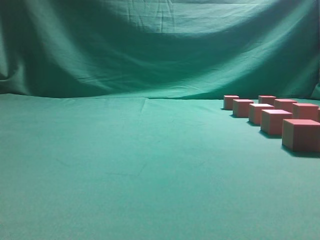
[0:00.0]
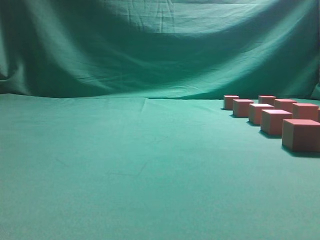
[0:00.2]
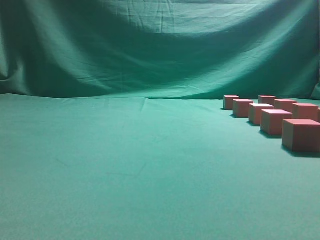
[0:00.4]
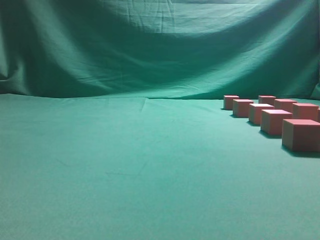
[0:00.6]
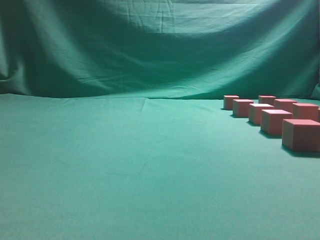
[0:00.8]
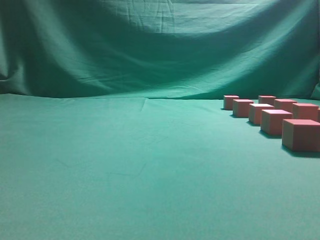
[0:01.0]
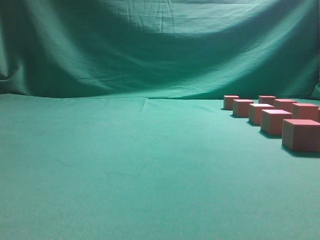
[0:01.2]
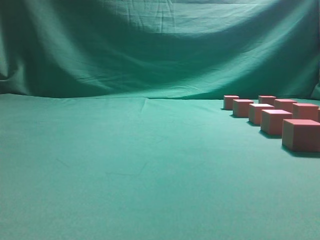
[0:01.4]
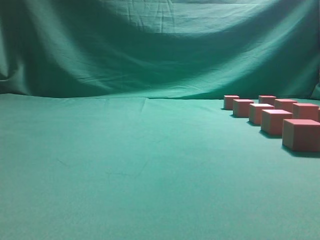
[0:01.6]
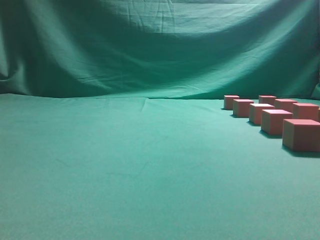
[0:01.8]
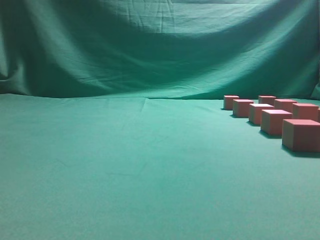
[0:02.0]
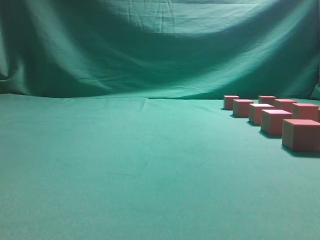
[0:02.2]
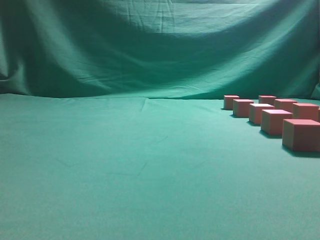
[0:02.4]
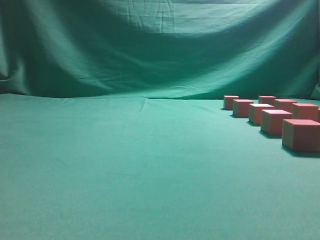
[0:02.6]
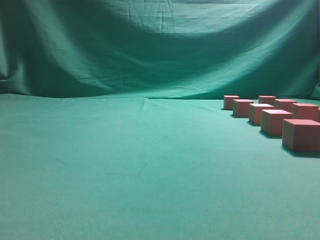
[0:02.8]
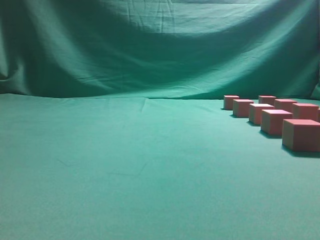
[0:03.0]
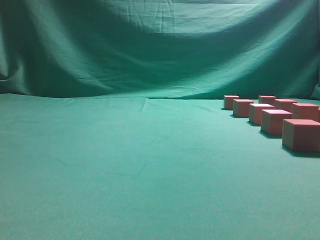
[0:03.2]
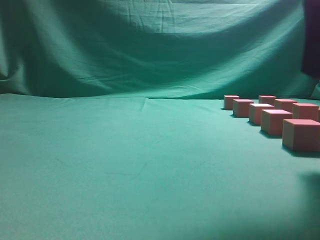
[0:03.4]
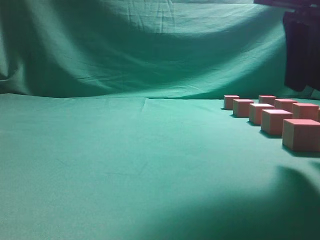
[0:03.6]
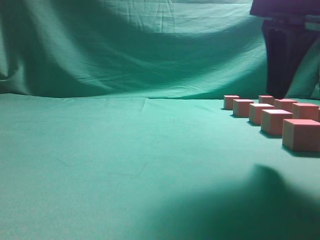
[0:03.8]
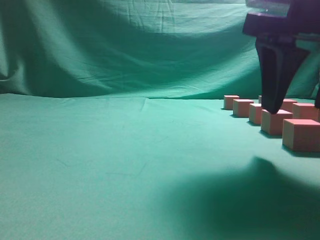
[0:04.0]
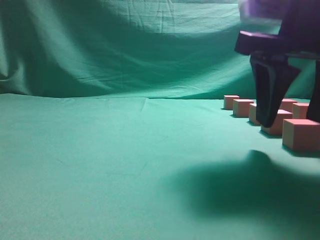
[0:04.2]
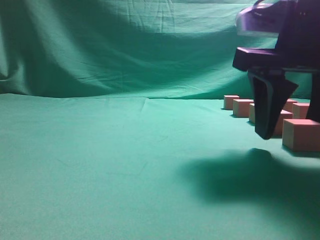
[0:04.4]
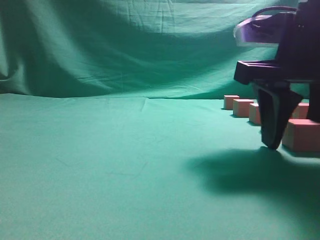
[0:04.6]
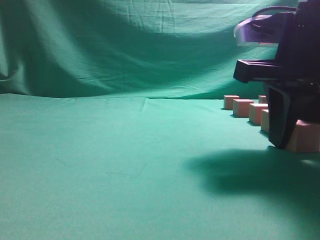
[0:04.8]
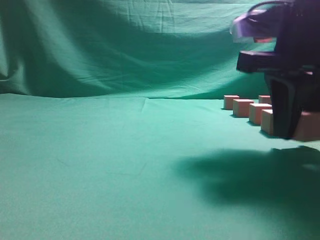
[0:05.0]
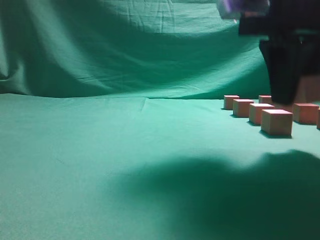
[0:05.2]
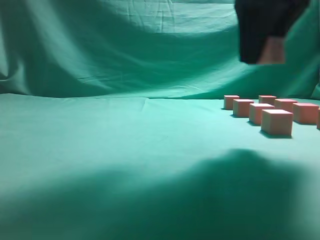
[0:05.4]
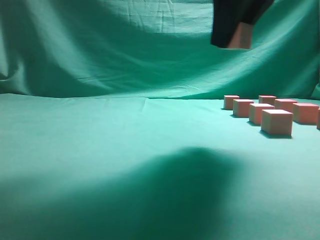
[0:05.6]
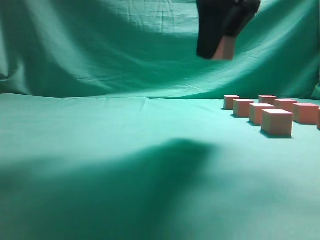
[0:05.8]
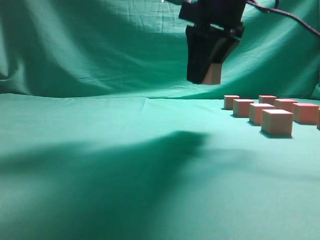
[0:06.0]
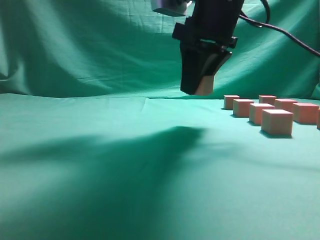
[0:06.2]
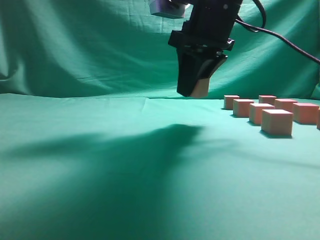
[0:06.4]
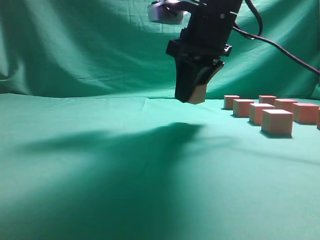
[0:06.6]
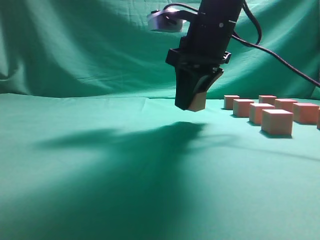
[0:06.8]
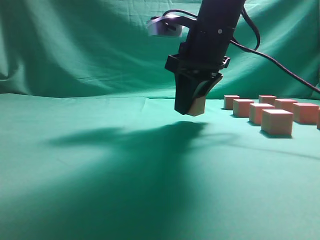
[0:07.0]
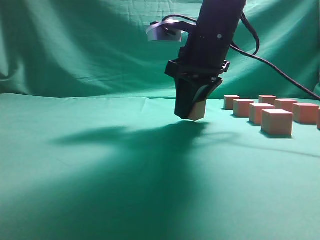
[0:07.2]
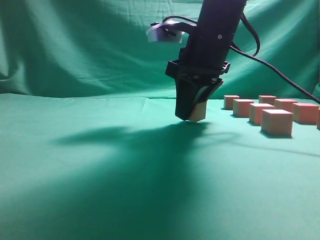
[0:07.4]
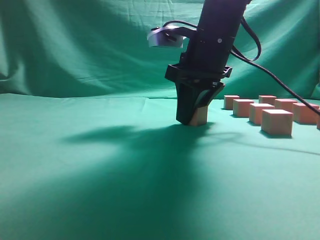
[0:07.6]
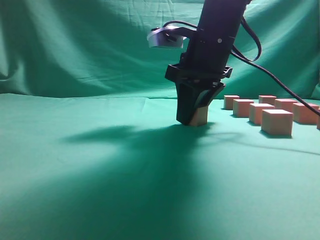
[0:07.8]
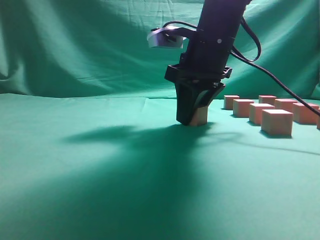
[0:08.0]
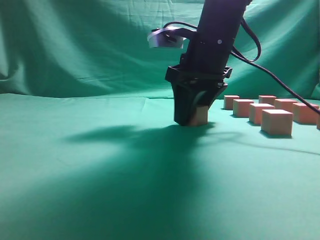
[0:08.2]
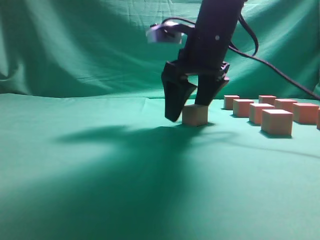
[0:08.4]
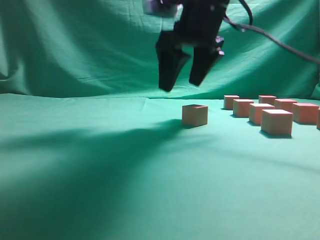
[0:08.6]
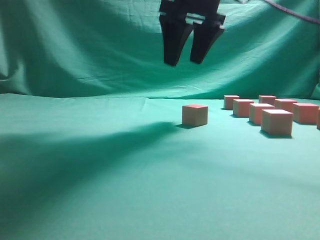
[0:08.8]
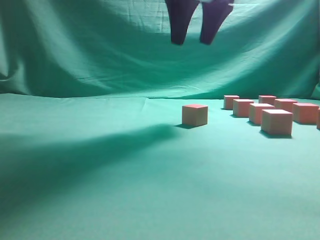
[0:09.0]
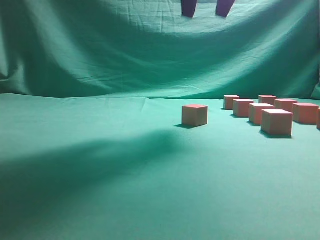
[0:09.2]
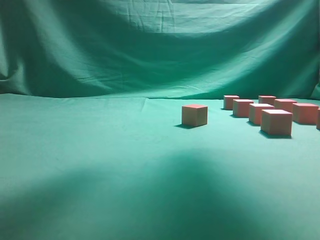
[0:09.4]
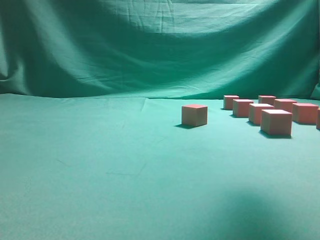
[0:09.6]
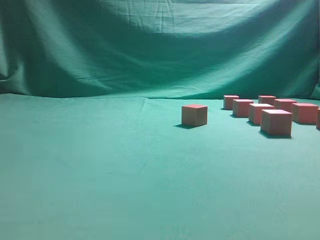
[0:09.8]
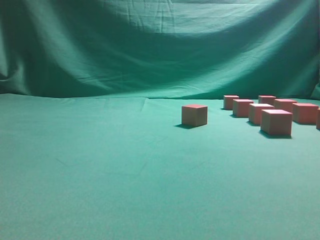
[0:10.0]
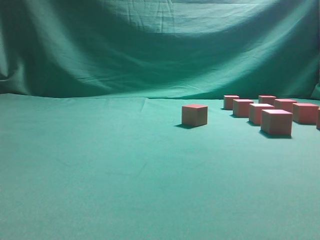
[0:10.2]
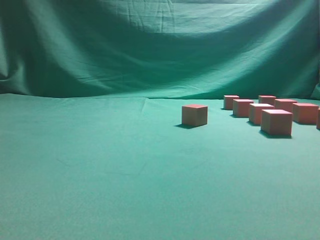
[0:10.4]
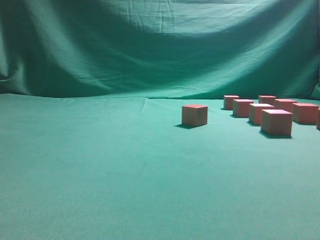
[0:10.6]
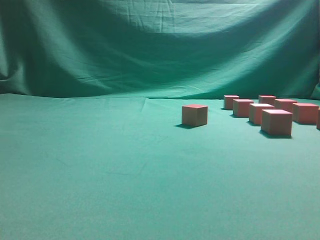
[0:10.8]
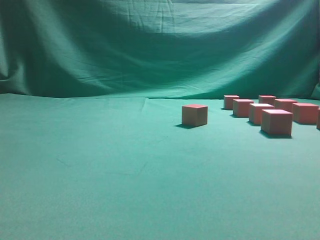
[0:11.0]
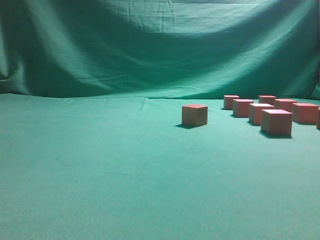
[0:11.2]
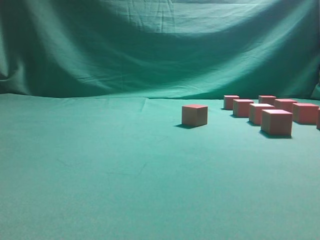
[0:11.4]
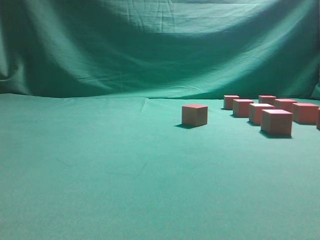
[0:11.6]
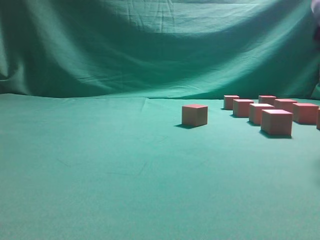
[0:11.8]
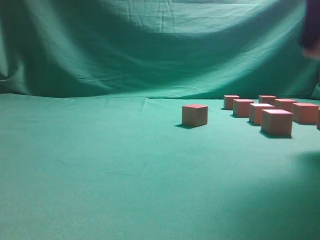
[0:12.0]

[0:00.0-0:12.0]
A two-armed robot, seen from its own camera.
Task of the whole recording: pick up the multiple cubes in two columns one by one and place them in another position on the table.
Step, 0:00.0 to 0:05.0: Pick up the block on the table.
Step, 0:05.2 to 0:08.8: Place the block at the correct position to assemble the letter S.
Step, 0:09.0 to 0:11.6: Pick up the block on the table.
0:03.0 to 0:04.4: The right gripper travels downward, forward and to the left by about 15 cm, and opens.
0:04.4 to 0:06.0: The right gripper is displaced forward, to the left and upward by some 15 cm, and closes.
0:06.0 to 0:07.6: The right gripper shifts about 5 cm downward.
0:07.6 to 0:09.0: The right gripper is displaced upward by about 15 cm, and opens.
0:09.0 to 0:10.4: The right gripper shifts roughly 25 cm to the right, backward and downward.
0:10.4 to 0:12.0: The right gripper heads upward and forward, covering approximately 10 cm, and closes.

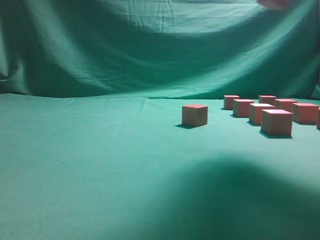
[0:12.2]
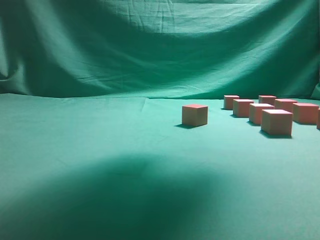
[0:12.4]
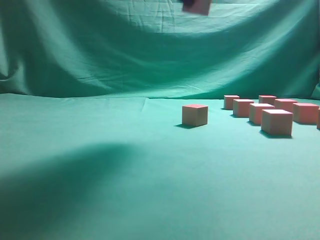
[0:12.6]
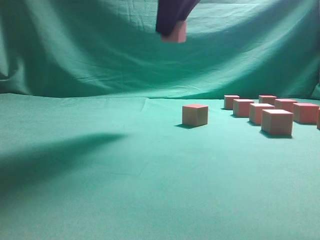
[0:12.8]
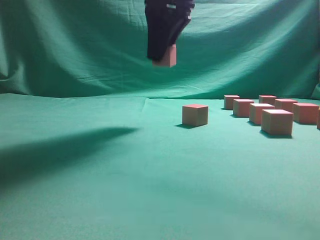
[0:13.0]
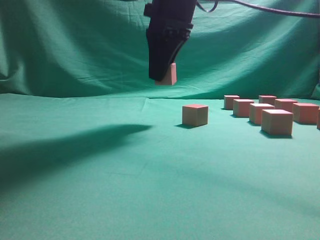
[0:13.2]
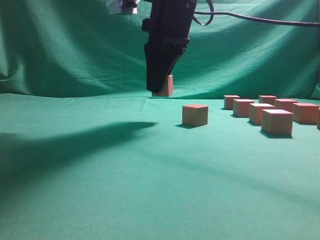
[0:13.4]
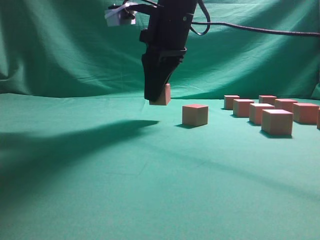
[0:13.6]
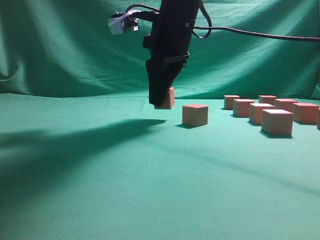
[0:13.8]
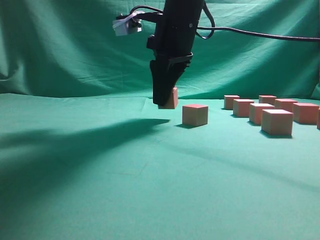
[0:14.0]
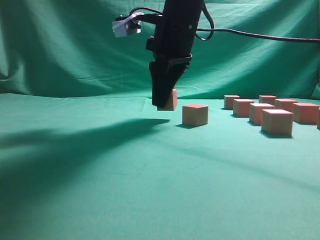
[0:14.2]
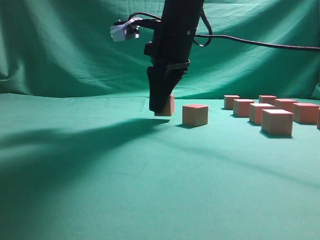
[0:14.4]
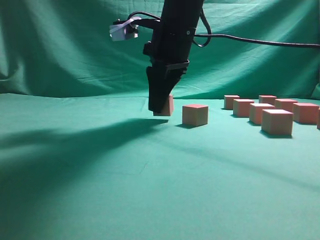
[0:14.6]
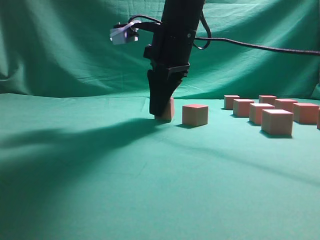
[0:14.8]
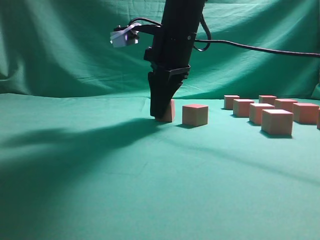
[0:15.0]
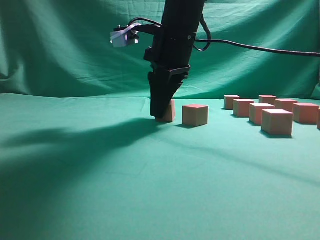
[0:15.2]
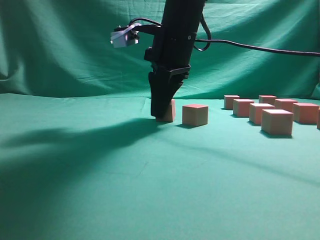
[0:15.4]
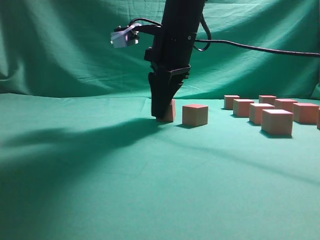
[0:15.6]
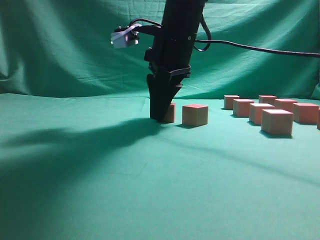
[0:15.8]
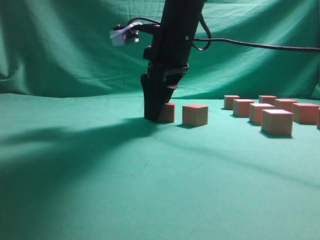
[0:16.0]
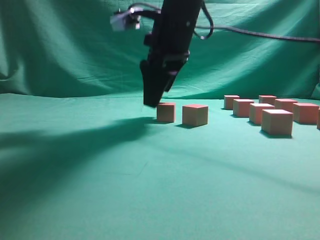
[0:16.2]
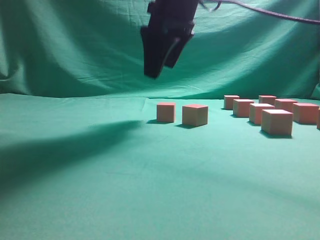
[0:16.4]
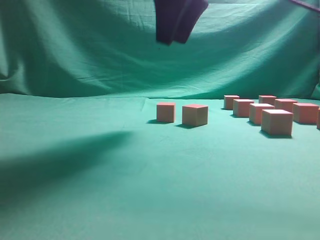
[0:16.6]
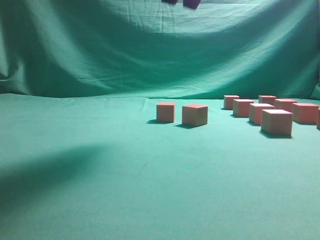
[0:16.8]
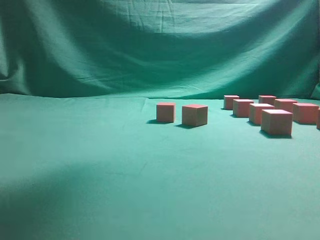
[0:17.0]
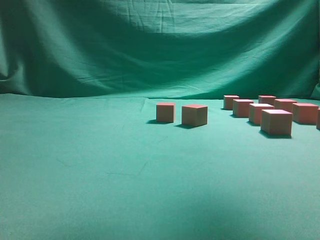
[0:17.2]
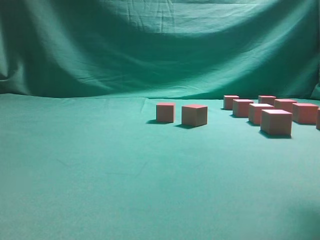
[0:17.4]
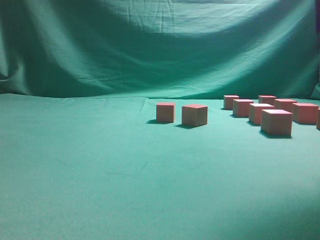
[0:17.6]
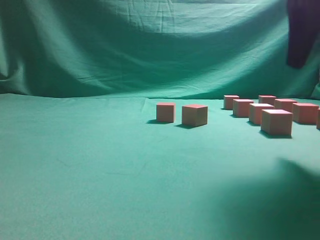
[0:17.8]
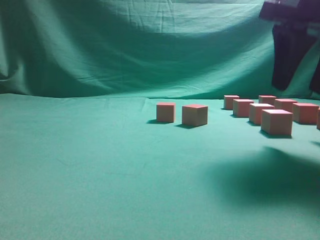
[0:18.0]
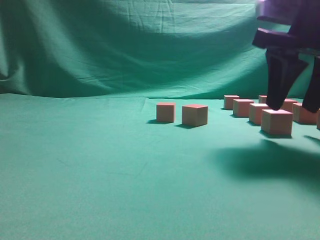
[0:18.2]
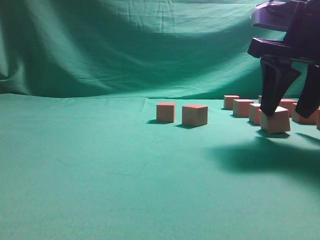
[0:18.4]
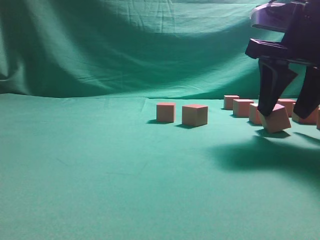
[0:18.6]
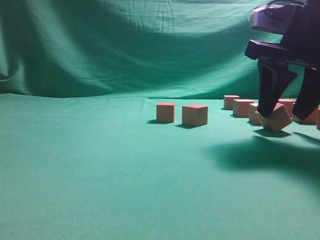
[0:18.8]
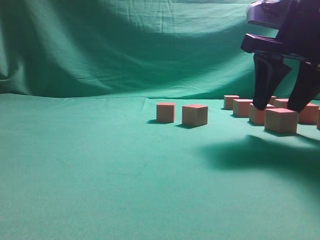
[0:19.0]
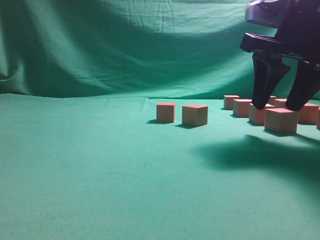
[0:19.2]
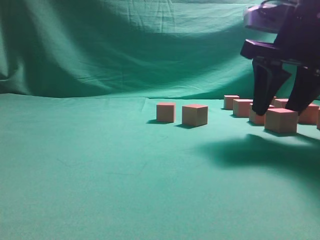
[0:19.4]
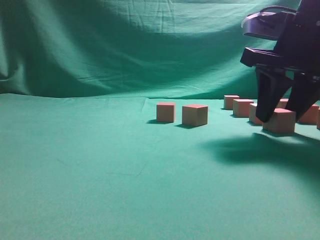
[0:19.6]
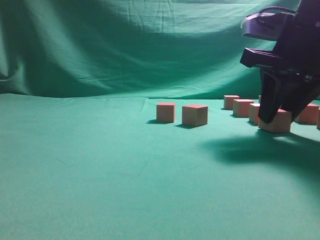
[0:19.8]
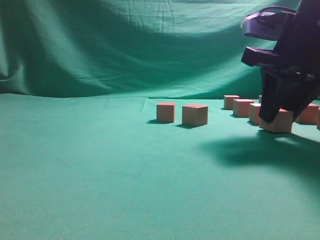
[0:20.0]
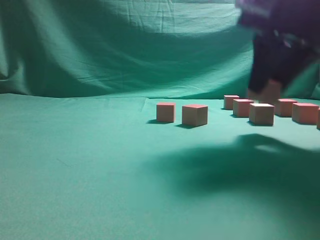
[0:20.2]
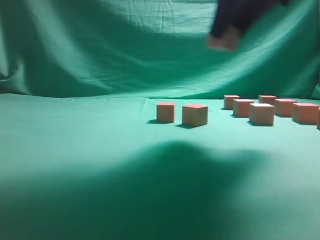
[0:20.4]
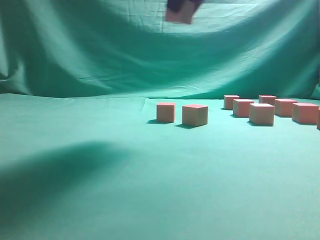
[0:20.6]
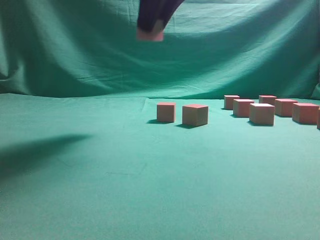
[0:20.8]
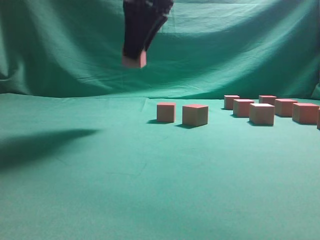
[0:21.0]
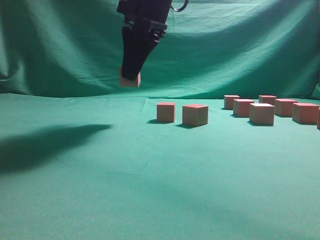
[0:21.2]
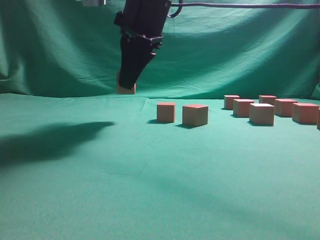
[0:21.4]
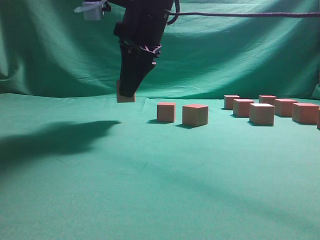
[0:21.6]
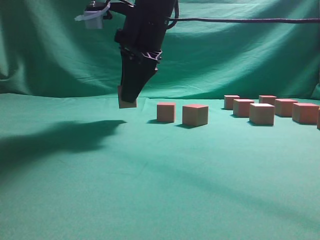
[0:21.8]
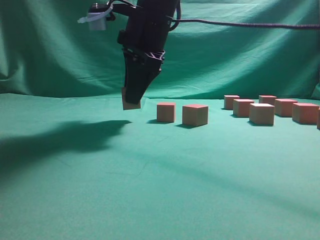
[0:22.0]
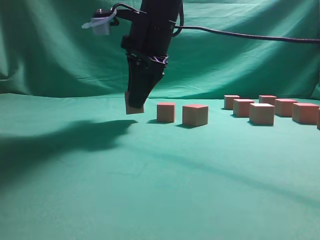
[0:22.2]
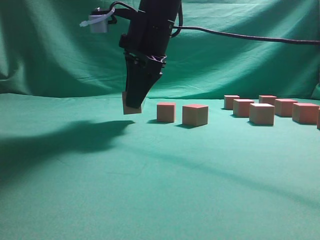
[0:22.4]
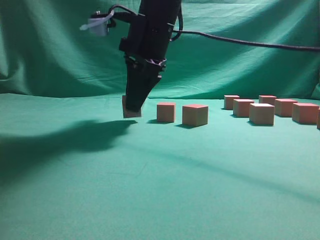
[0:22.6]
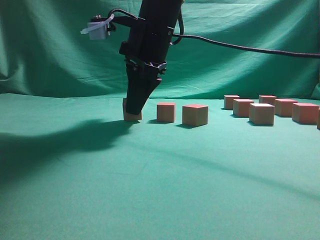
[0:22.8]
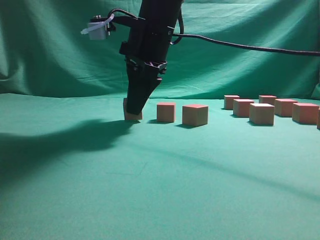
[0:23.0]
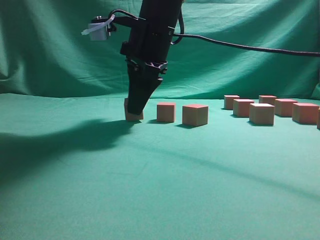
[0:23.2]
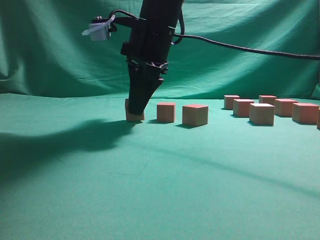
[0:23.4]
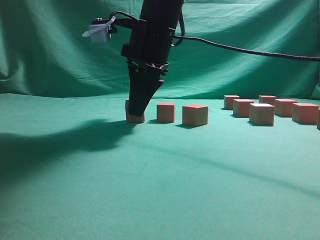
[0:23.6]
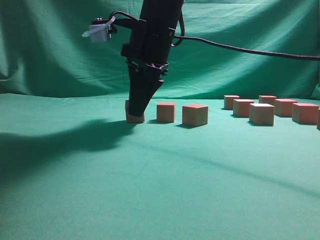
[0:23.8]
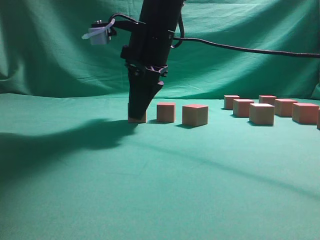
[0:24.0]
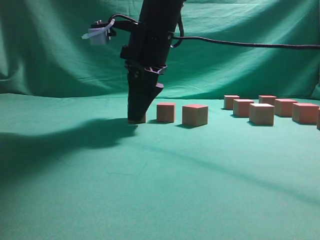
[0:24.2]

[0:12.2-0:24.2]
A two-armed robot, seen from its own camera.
Task of the whole recording: pick up the multiple cubes in two columns one by one and place them in another position on the table.
Step, 0:12.2 to 0:16.4: Place the block at the correct position to assemble the letter S.
Step, 0:16.6 to 0:20.0: Pick up the block on the table.
0:12.2 to 0:13.8: The right gripper goes approximately 25 cm to the left, downward and forward.
0:13.8 to 0:15.2: There are only small adjustments of the grippers.
0:15.2 to 0:16.6: The right gripper moves upward, approximately 10 cm, and opens its fingers.
0:16.6 to 0:18.2: The right gripper heads to the right and downward, covering approximately 20 cm.
0:18.2 to 0:19.8: The grippers stay close to where they were, moving slightly.
0:19.8 to 0:21.2: The right gripper moves to the left, some 20 cm.
0:21.2 to 0:22.6: The right gripper heads downward, covering approximately 5 cm.
0:22.6 to 0:24.2: The right gripper opens up.
